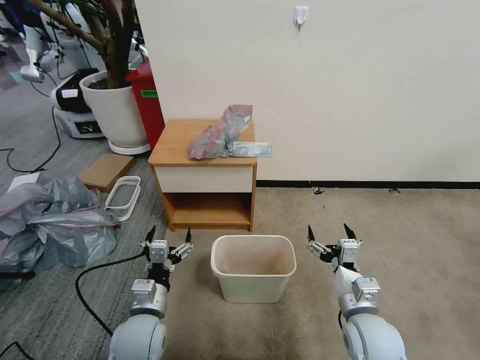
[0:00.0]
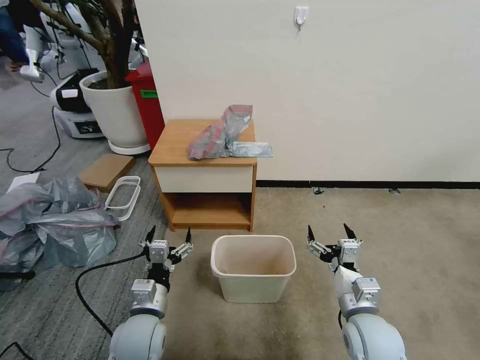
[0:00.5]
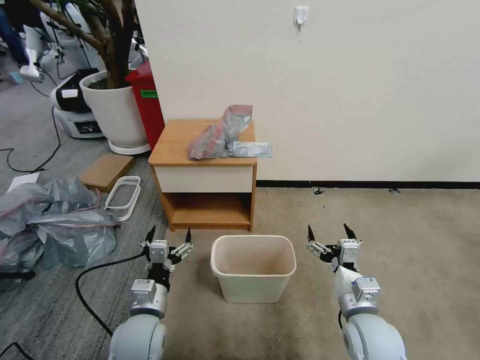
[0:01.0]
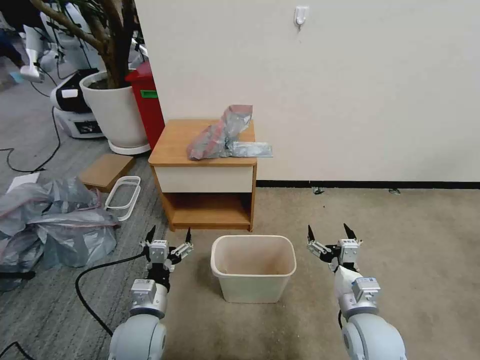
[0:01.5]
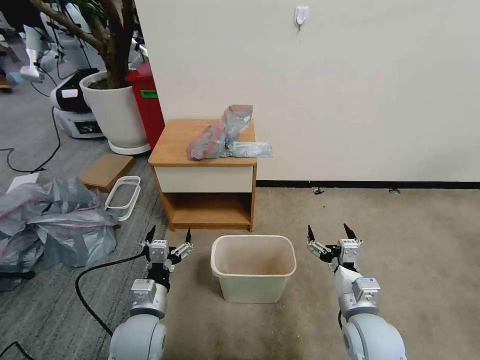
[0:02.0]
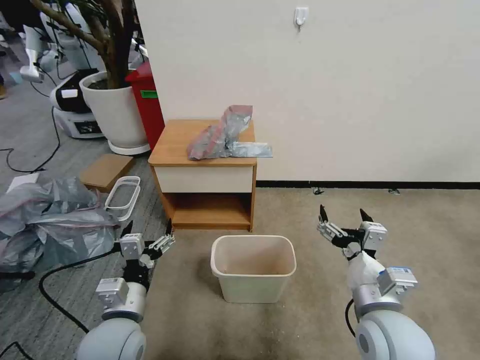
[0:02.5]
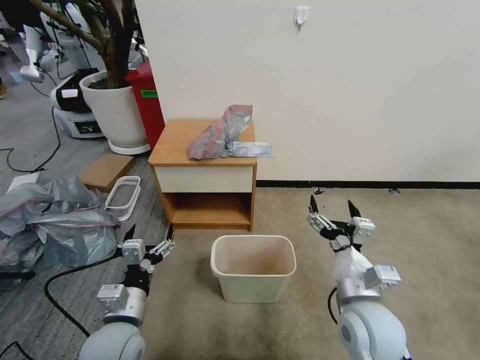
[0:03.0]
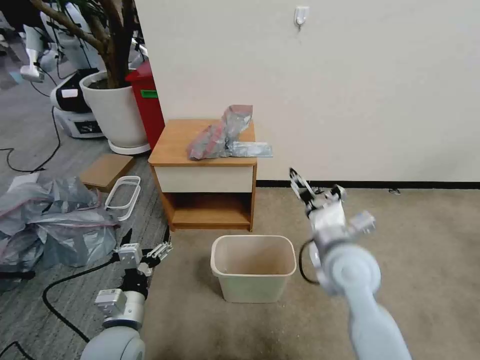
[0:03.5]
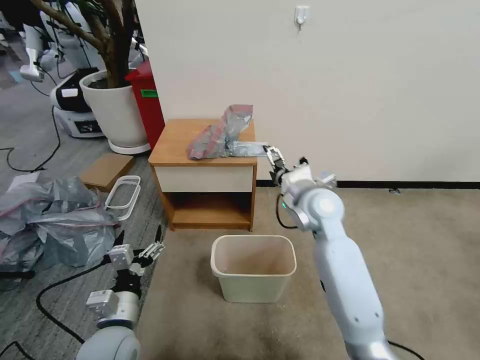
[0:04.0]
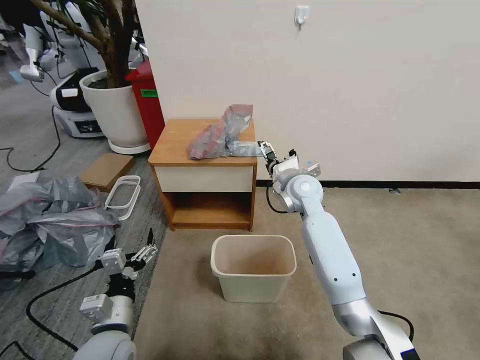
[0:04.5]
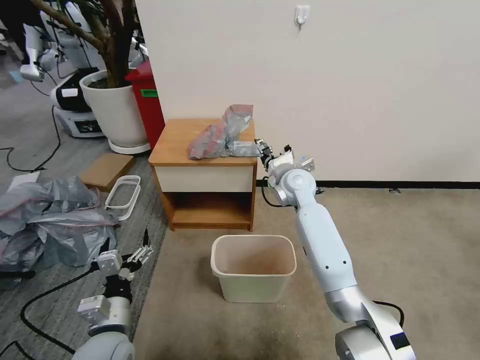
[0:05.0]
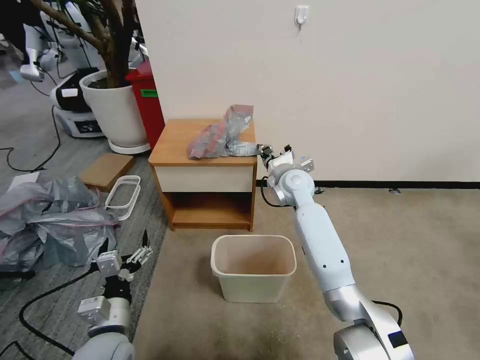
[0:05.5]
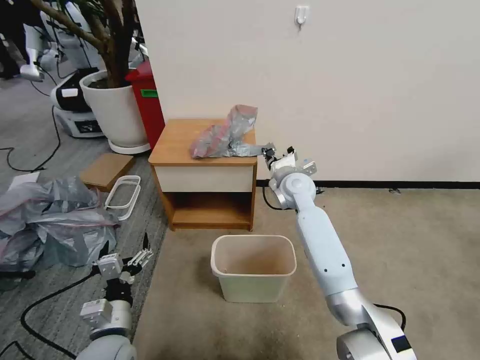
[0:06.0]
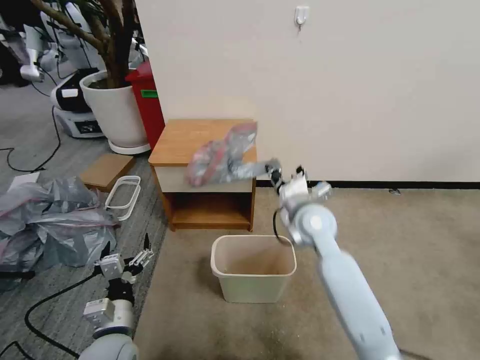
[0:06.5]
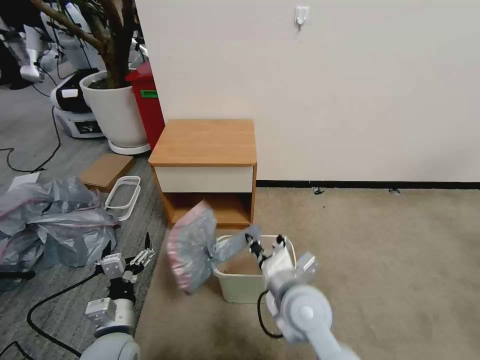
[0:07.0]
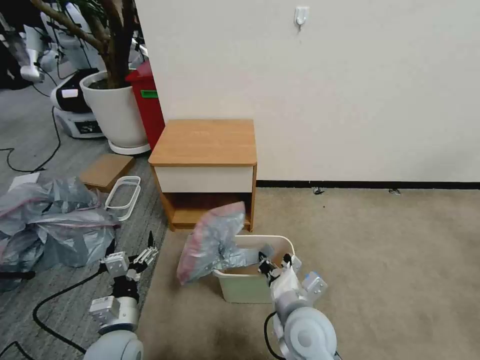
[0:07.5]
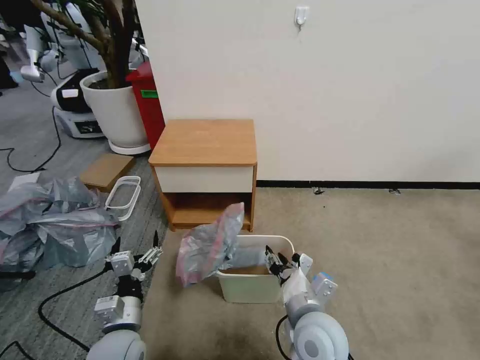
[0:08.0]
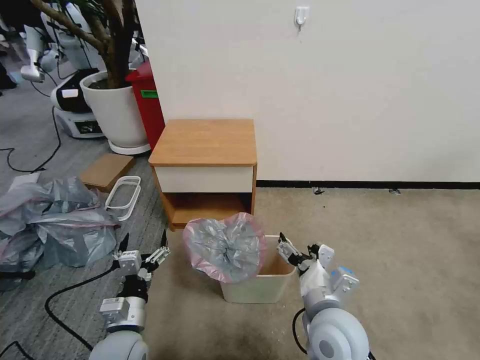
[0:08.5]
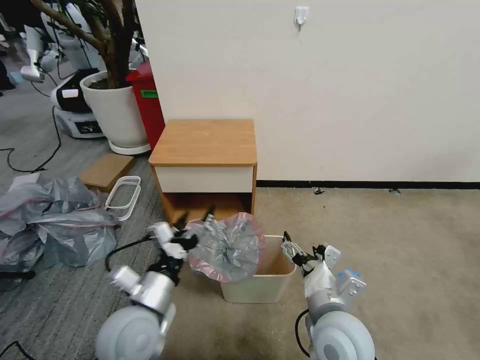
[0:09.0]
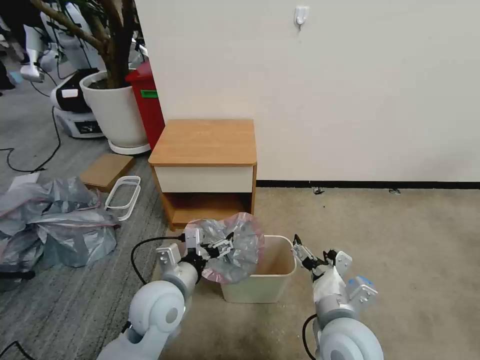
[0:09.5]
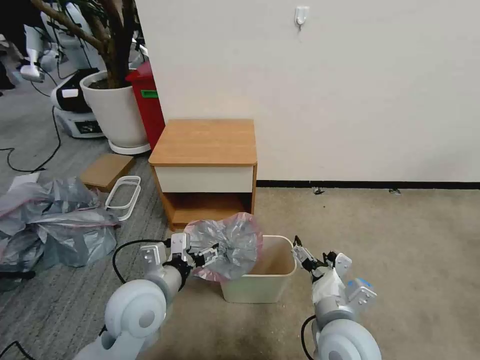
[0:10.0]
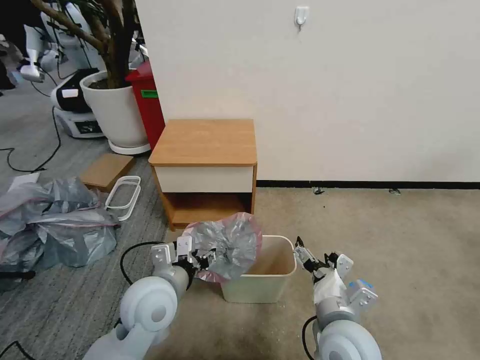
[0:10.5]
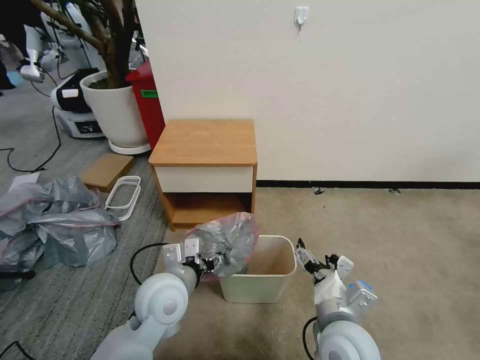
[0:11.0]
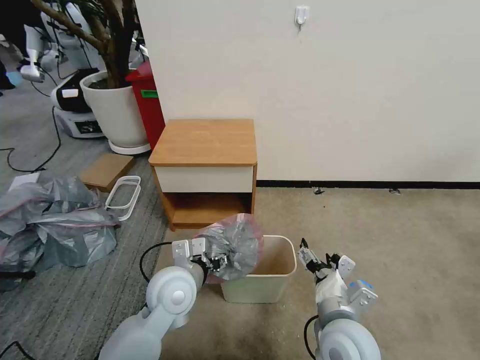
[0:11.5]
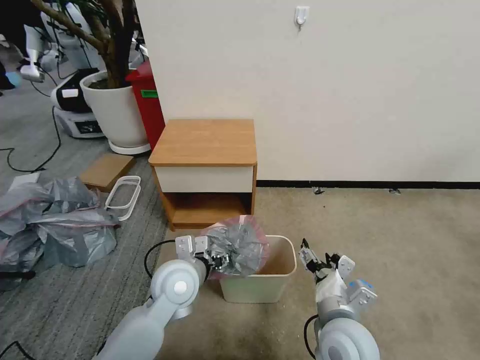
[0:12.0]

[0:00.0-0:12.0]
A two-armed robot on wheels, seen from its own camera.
Task of the whole recording: Pick up the garbage bag from the table and place it over the trash can.
0:02.0 to 0:04.0: The left gripper changes place by some 5 cm; the right gripper shifts some 25 cm forward and upward.
0:04.0 to 0:06.0: The right gripper goes approximately 10 cm forward, and closes up.
0:06.0 to 0:08.0: The right gripper heads backward, covering approximately 30 cm, and opens.
0:08.0 to 0:10.0: The right gripper opens its fingers, while the left gripper moves upward, to the right and forward, roughly 15 cm.
0:10.0 to 0:12.0: The left gripper is displaced forward by roughly 5 cm.

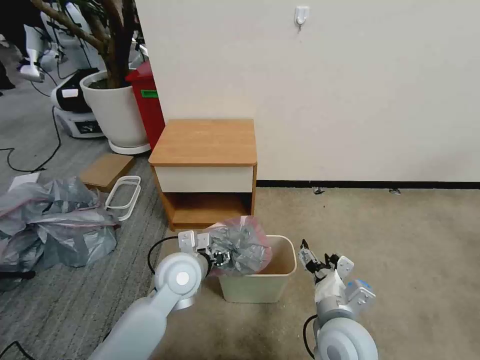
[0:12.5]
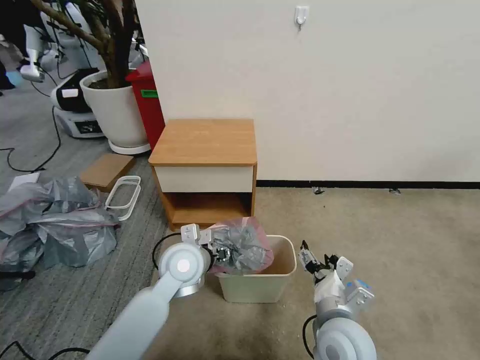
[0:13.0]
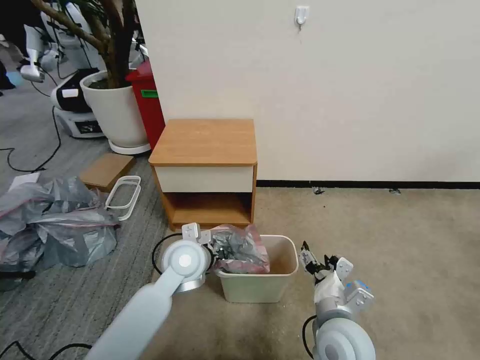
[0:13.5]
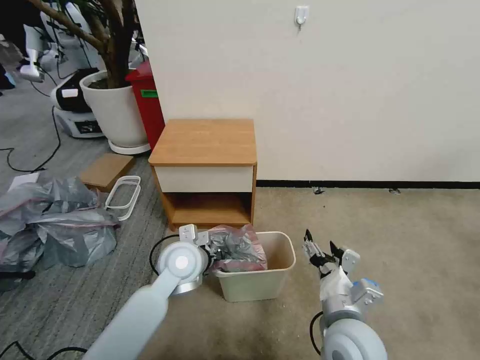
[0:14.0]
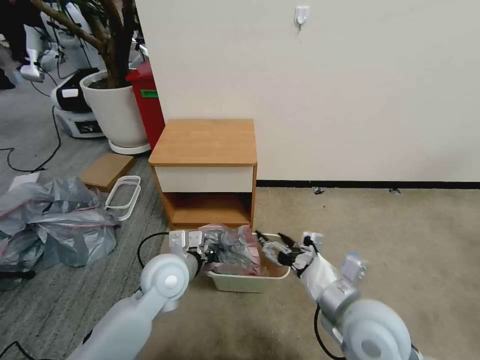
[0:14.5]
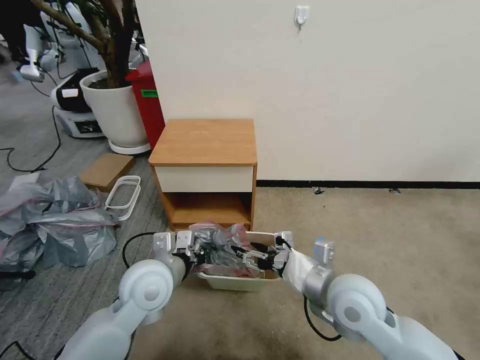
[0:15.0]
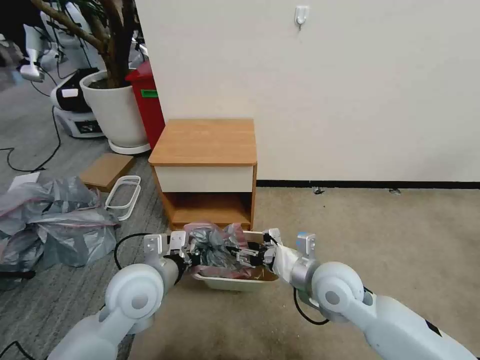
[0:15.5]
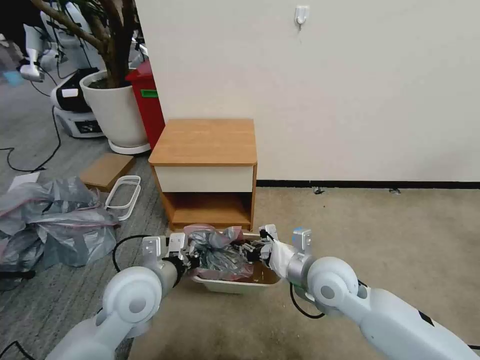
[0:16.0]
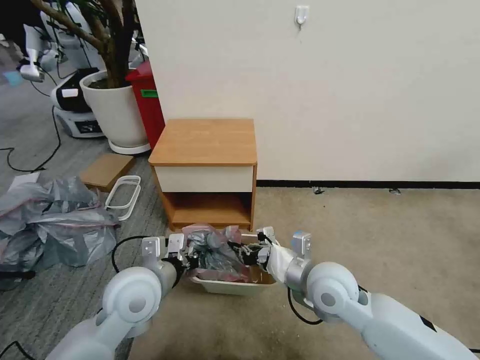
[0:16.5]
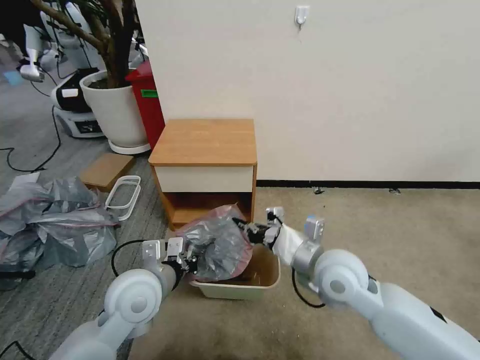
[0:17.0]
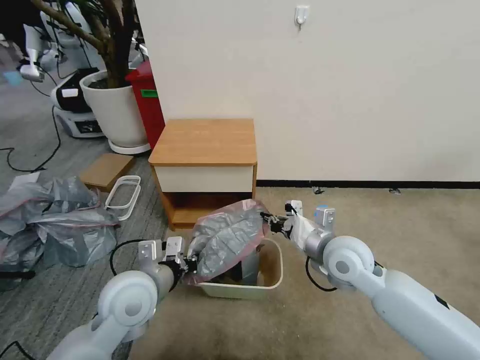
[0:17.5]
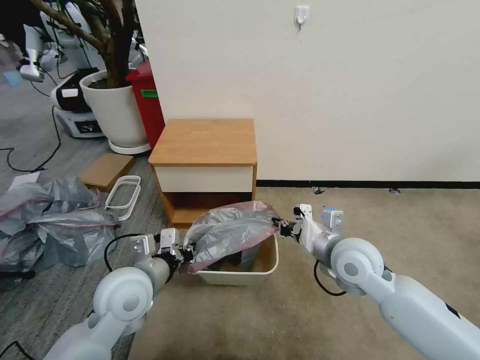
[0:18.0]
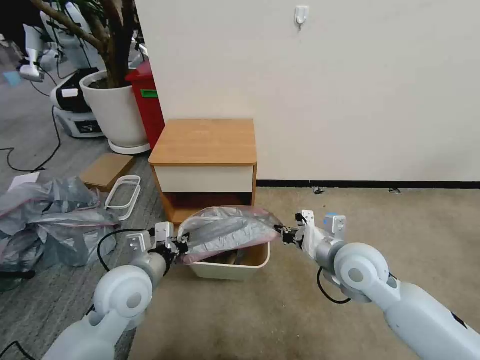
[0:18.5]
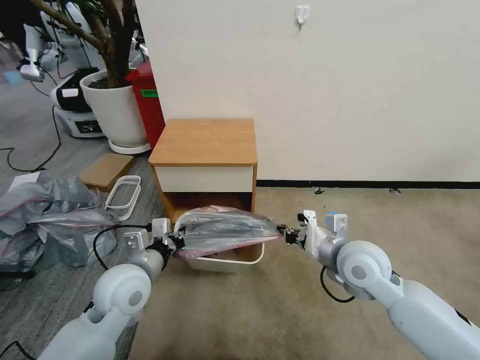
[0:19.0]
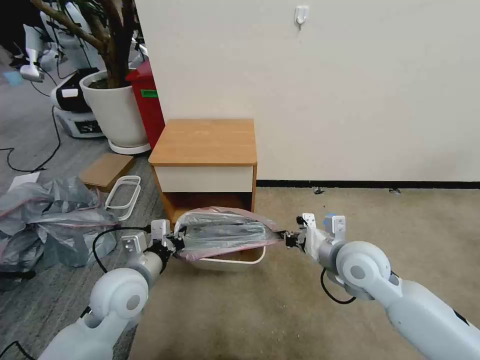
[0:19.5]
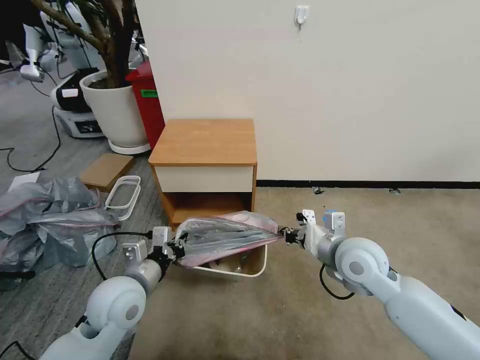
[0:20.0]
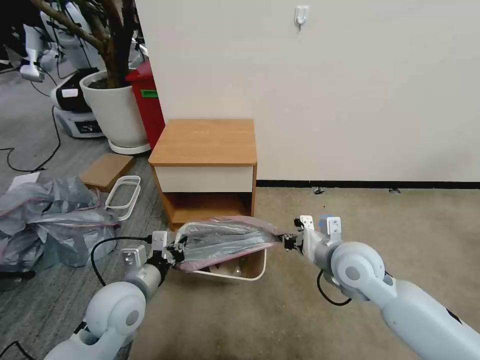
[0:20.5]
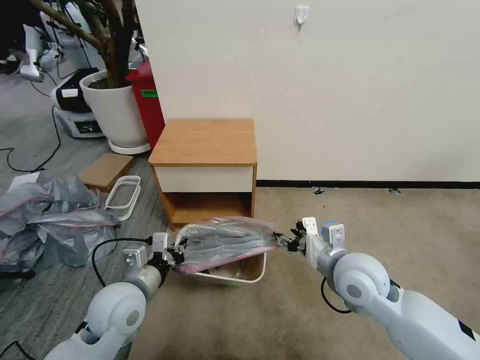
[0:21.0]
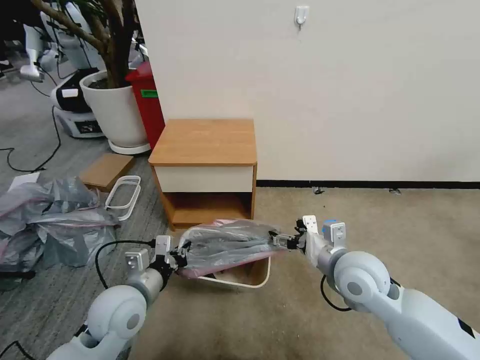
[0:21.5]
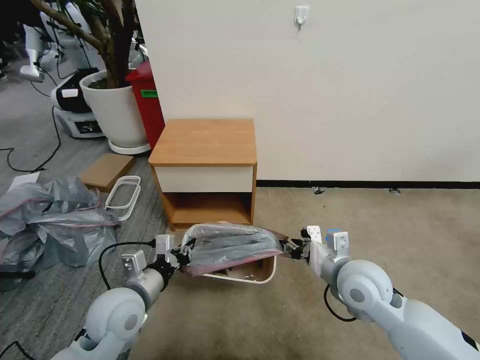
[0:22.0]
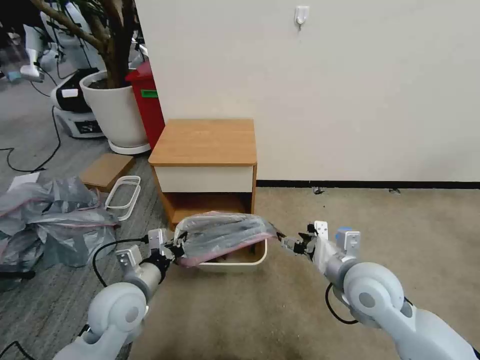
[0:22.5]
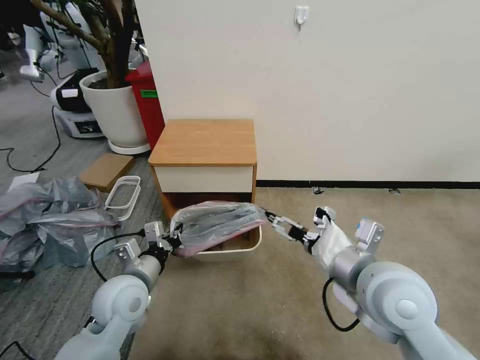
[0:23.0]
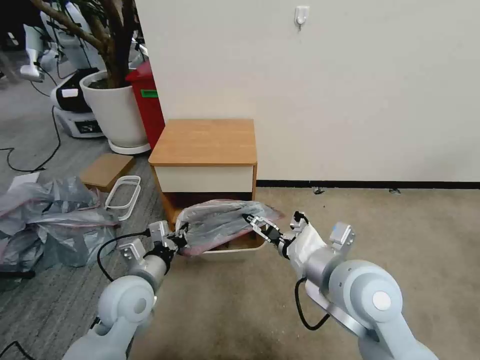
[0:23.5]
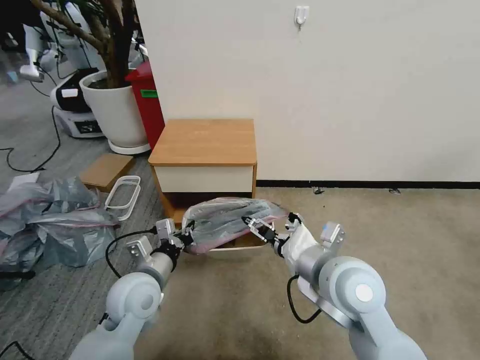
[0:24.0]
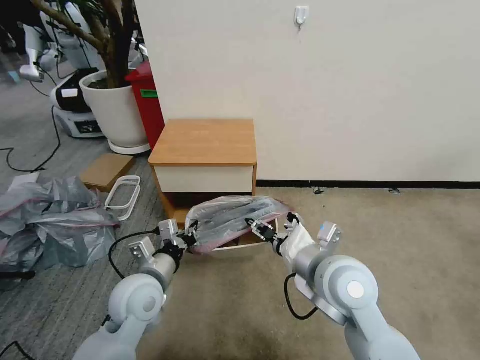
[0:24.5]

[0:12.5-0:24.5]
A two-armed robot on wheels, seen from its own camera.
Task of the whole recording: Pick up the garbage bag from the table and place it over the trash can.
0:12.5 to 0:14.5: The right gripper goes approximately 5 cm upward; the left gripper closes its fingers.
0:14.5 to 0:16.5: The right gripper is displaced forward by roughly 10 cm, and closes up. The left gripper shifts by about 10 cm.
0:16.5 to 0:18.5: The right gripper travels to the right by some 5 cm.
0:18.5 to 0:20.5: The grippers stay close to where they were, moving slightly.
0:20.5 to 0:22.5: The right gripper opens its fingers.
0:22.5 to 0:24.5: The right gripper is displaced to the left by approximately 5 cm.

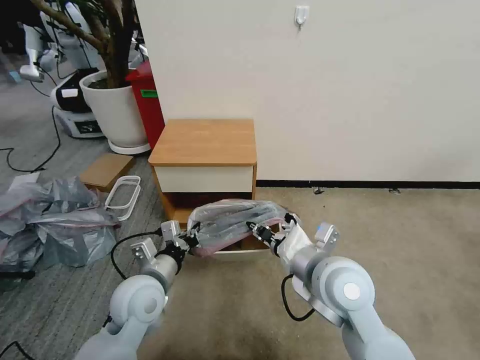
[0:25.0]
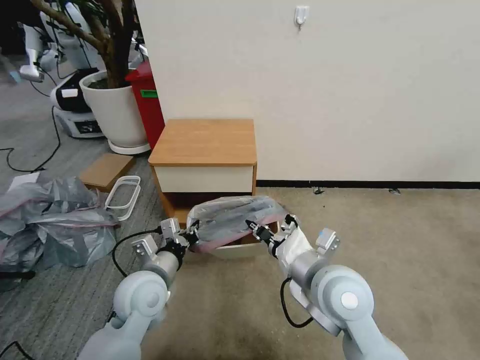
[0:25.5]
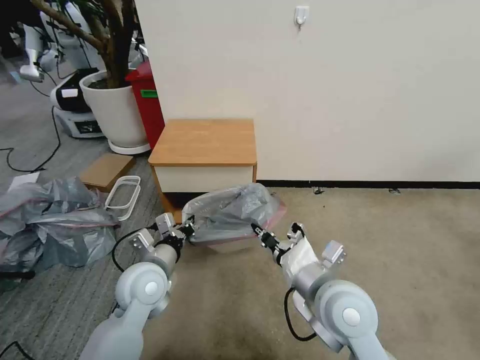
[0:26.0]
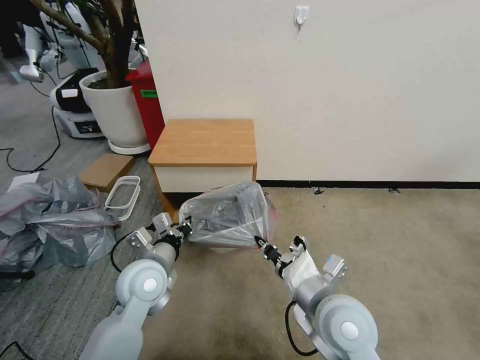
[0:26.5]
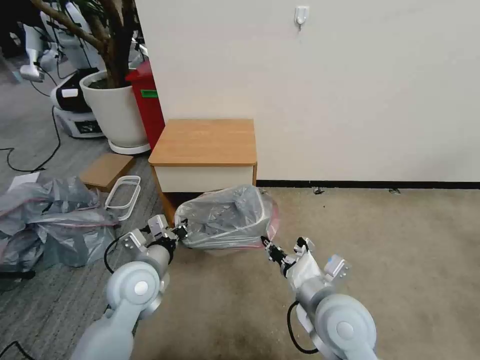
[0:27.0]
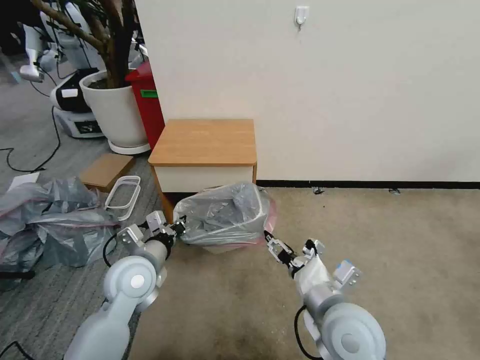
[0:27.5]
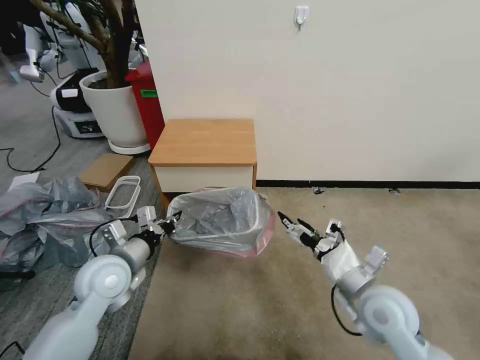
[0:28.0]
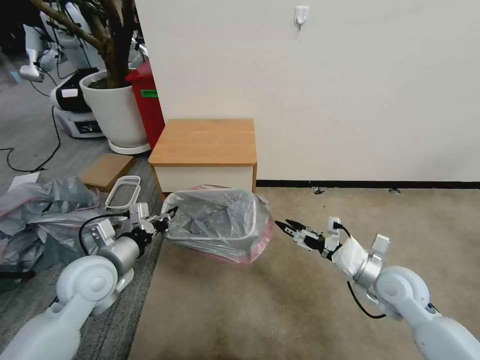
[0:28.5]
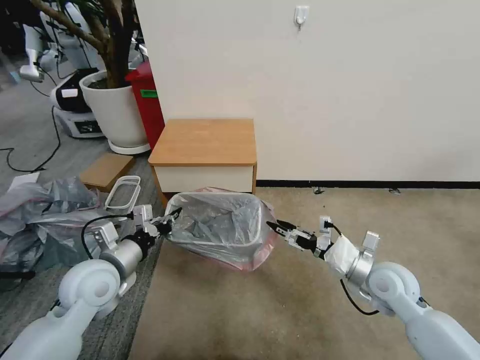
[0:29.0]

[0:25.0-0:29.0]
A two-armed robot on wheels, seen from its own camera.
Task of the whole recording: Pick up the garbage bag from the table and place it over the trash can.
0:25.0 to 0:27.0: The right gripper shifts approximately 5 cm downward.
0:27.0 to 0:29.0: The right gripper is displaced to the right and forward by some 20 cm, and opens its fingers; the left gripper is displaced to the left by about 5 cm.
